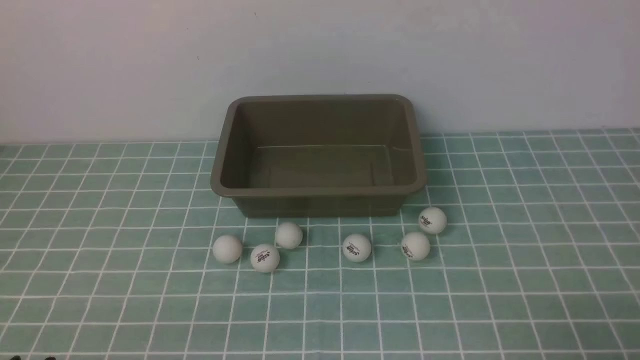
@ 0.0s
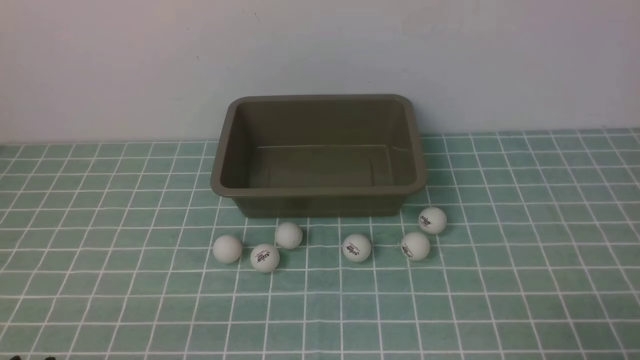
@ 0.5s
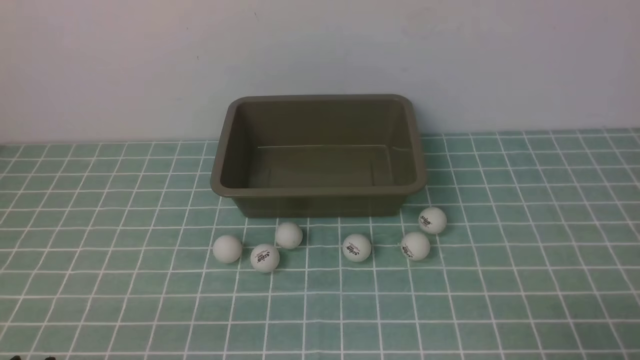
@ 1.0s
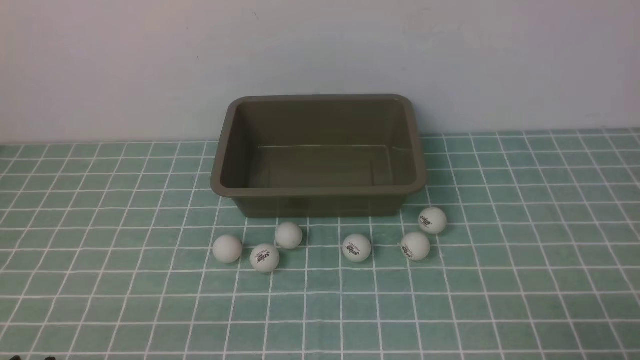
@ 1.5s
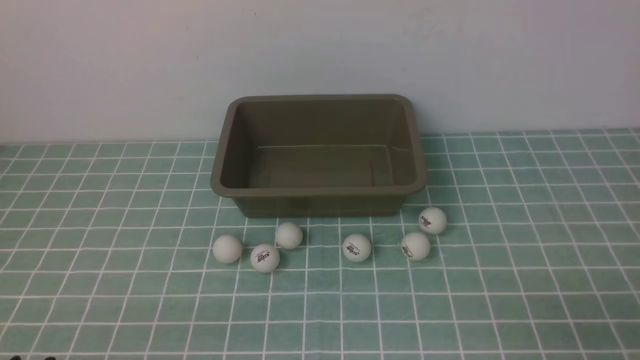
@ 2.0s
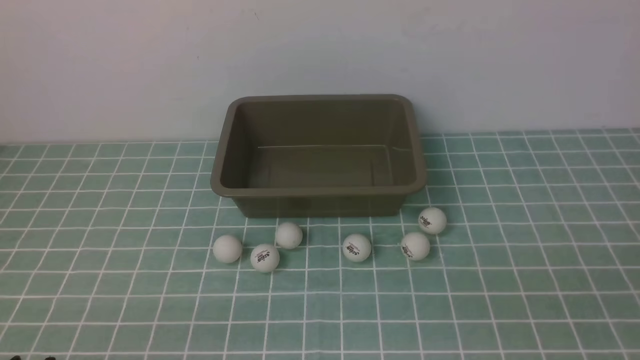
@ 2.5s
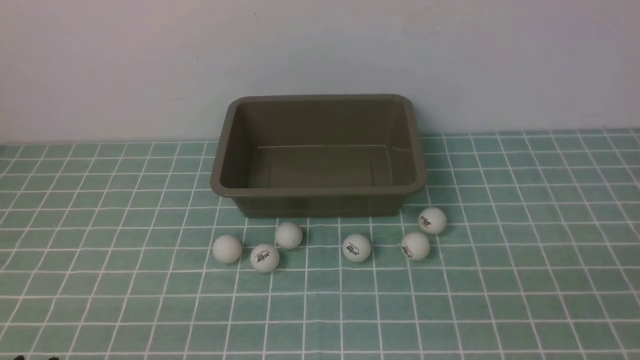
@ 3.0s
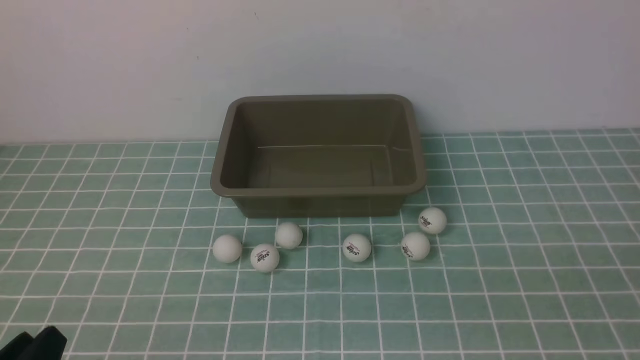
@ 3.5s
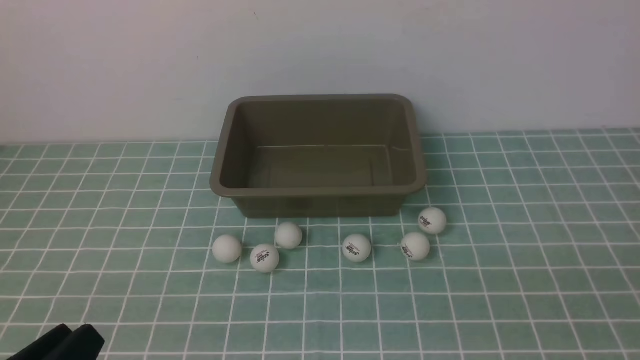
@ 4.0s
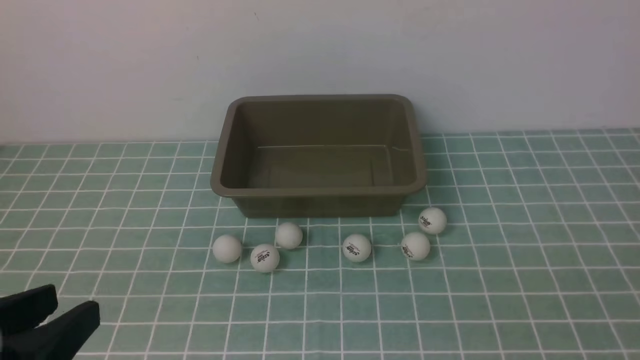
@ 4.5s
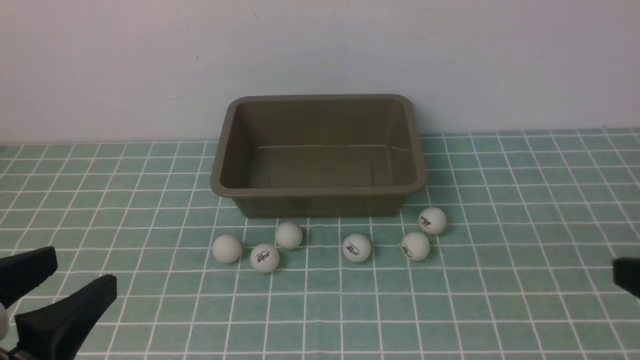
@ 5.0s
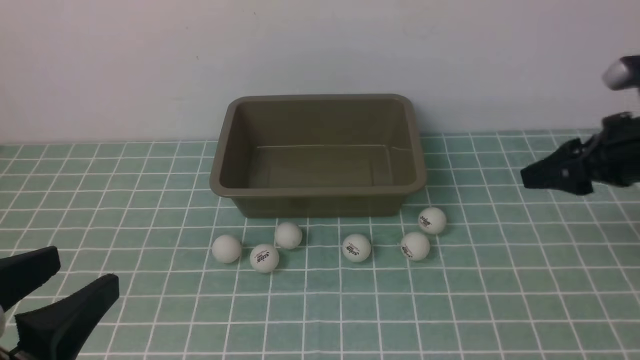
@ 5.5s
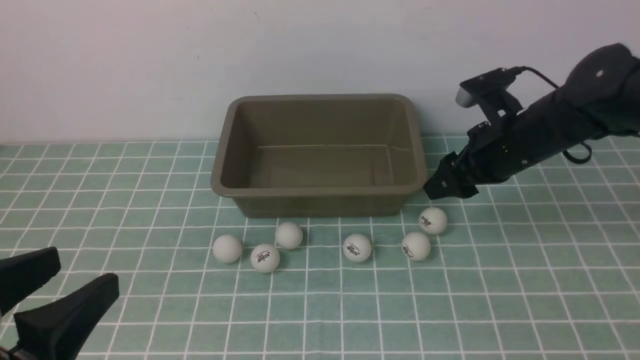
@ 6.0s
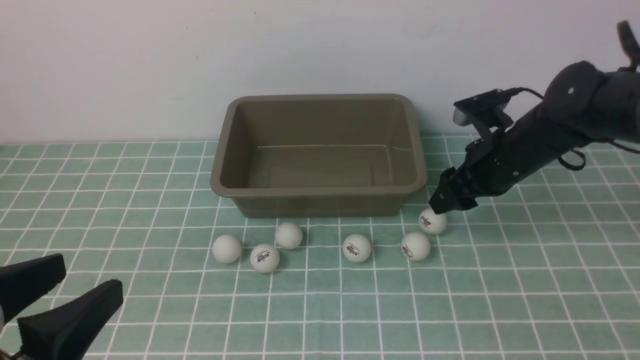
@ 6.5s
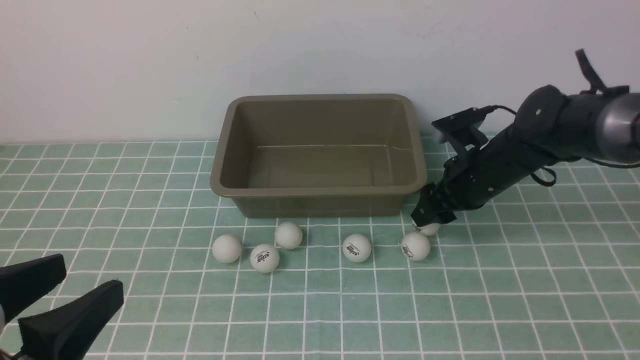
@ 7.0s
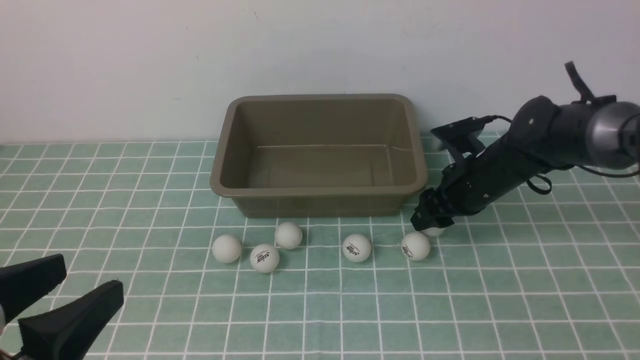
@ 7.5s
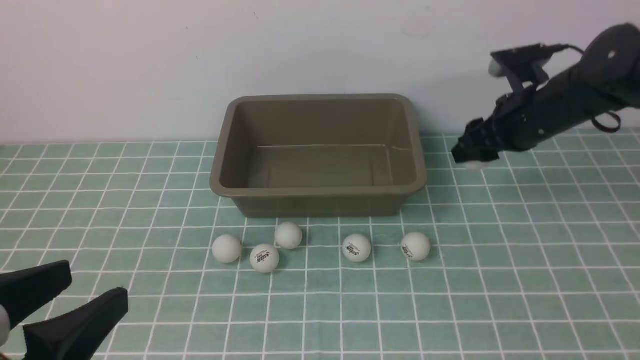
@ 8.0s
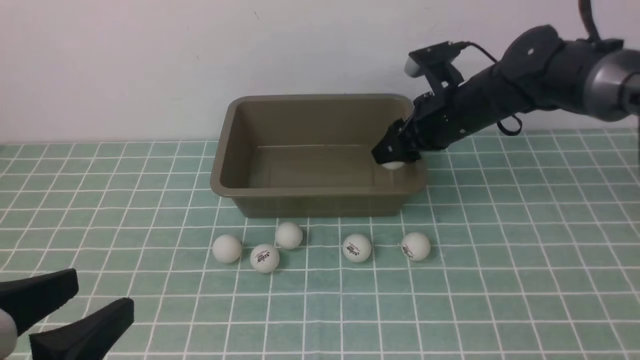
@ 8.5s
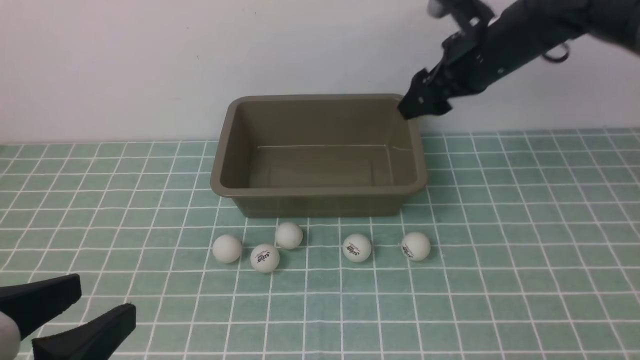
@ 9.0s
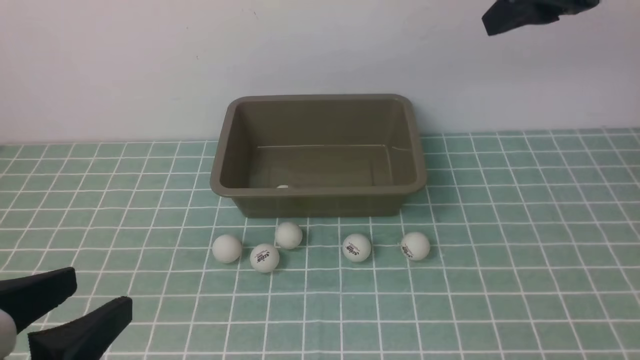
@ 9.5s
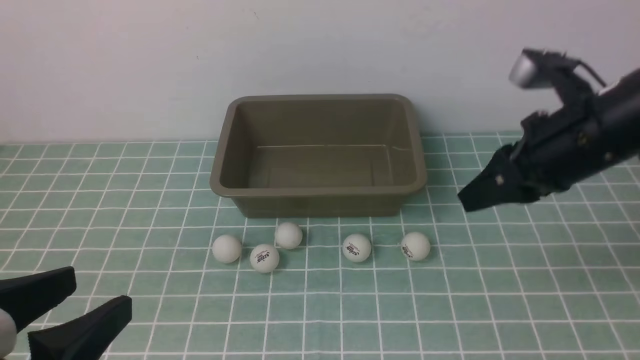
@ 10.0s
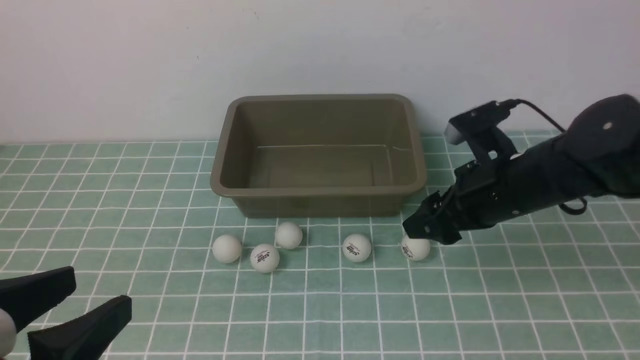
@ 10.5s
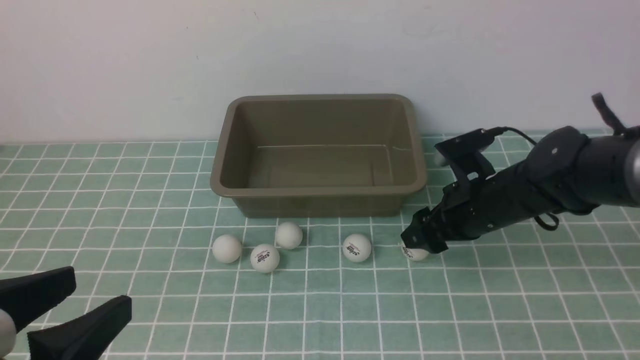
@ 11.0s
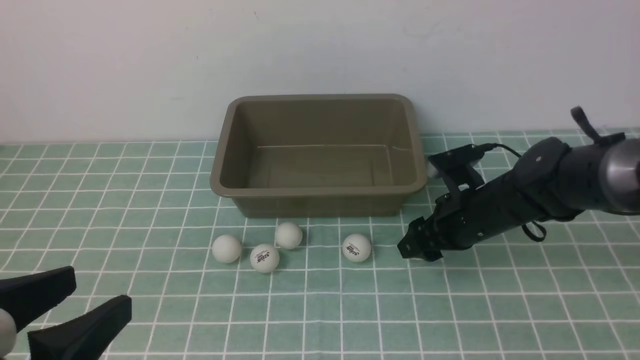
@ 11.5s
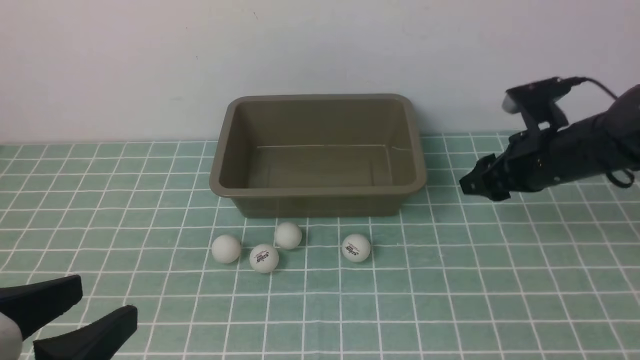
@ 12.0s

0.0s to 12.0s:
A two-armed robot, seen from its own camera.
Step, 0.0s to 7.5s: use the right arm to clamp the table tennis ball closest to it.
Step, 8.0s to 9.0s: use the right arm to put the table tennis ball into the box.
Step, 9.5s to 11.5s: use the right arm to clamp the table tennis ball closest to it.
2.0s to 4.0s: The left gripper changes place by approximately 5 cm.
4.0s to 6.0s: The left gripper moves upward, some 10 cm, and opens up; the right gripper heads forward, covering about 40 cm.
6.0s to 8.0s: The right gripper travels downward and back again, roughly 10 cm each way.
8.0s to 10.0s: The right gripper moves backward, some 10 cm, moves about 20 cm upward and comes back, and opens, then closes once more.
10.0s to 12.0s: The right gripper heads forward, covering roughly 10 cm, goes downward and returns, approximately 15 cm each way, and opens, then closes again.

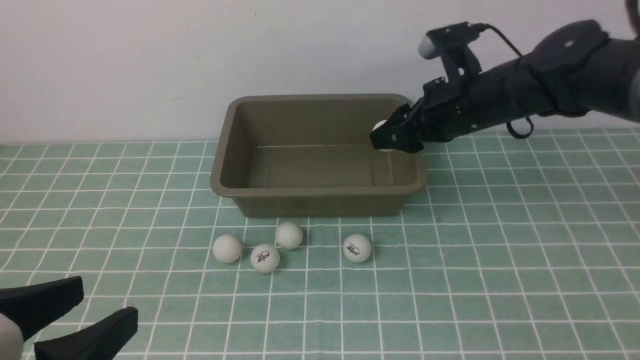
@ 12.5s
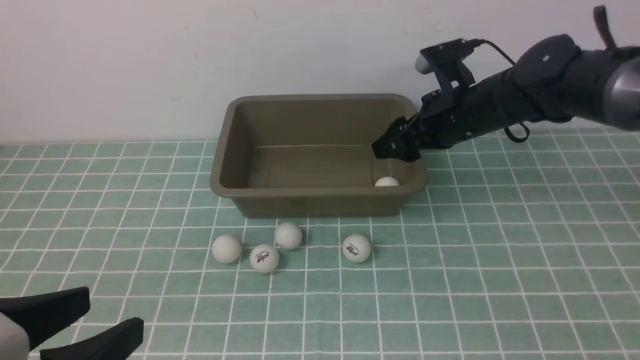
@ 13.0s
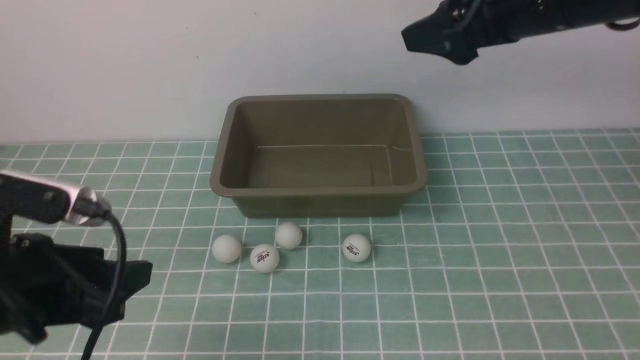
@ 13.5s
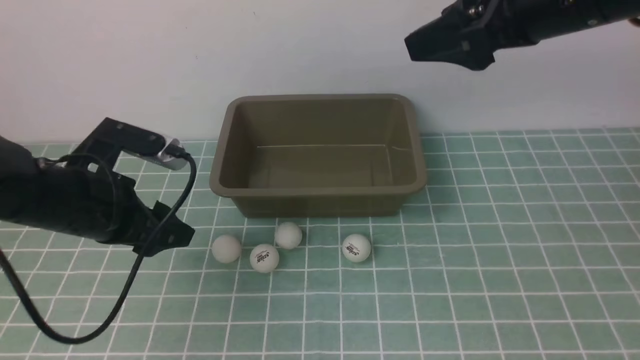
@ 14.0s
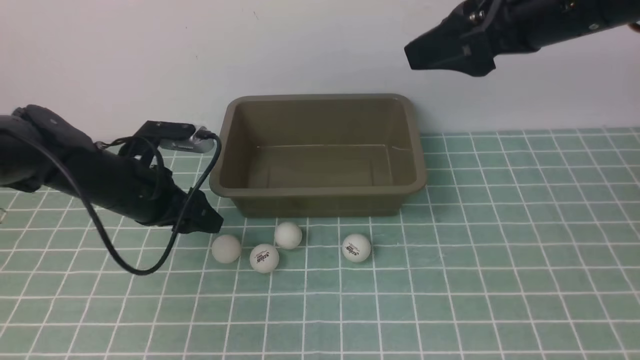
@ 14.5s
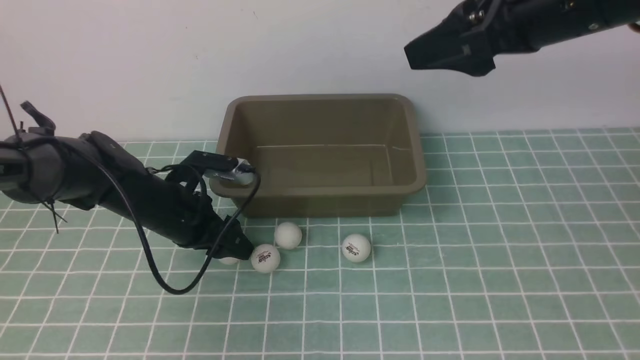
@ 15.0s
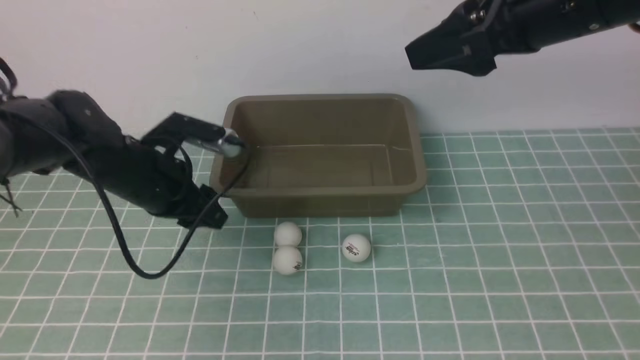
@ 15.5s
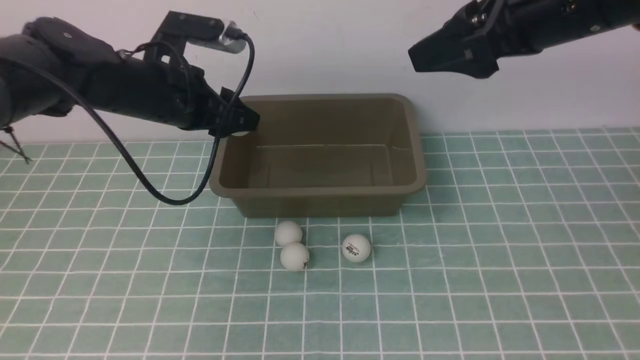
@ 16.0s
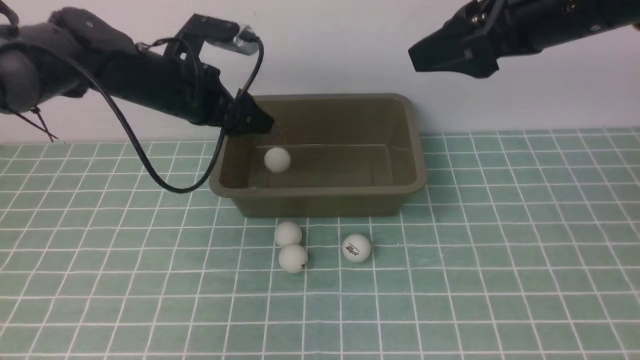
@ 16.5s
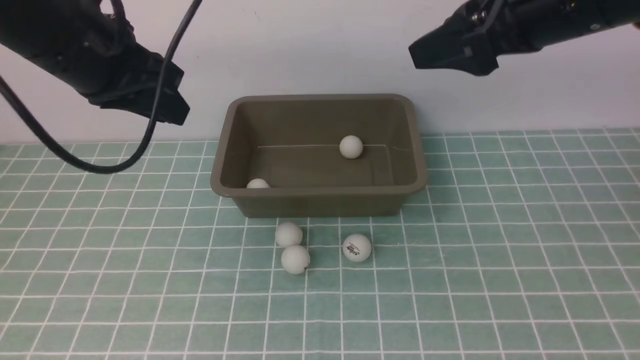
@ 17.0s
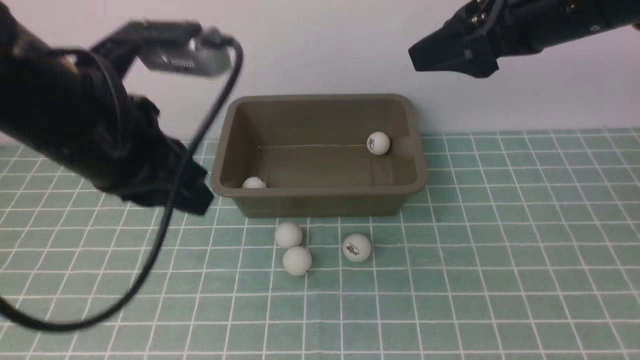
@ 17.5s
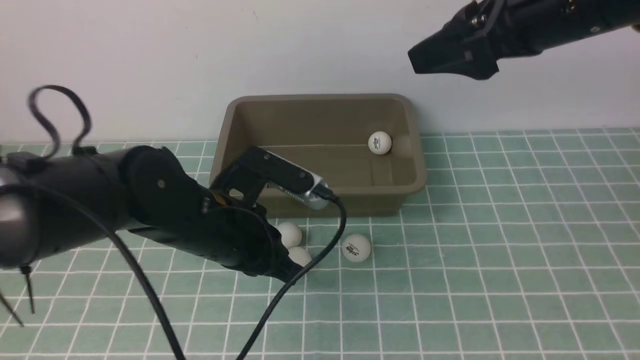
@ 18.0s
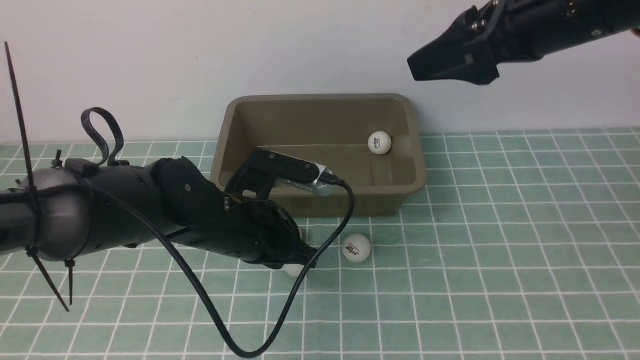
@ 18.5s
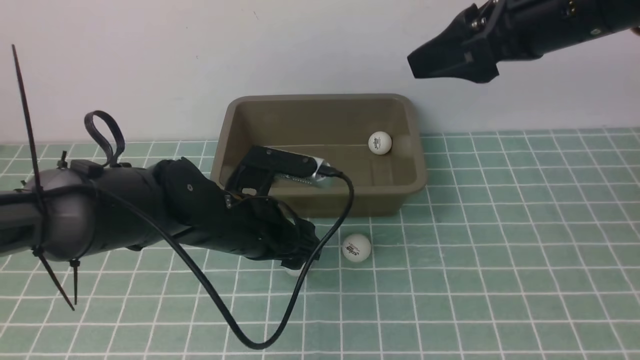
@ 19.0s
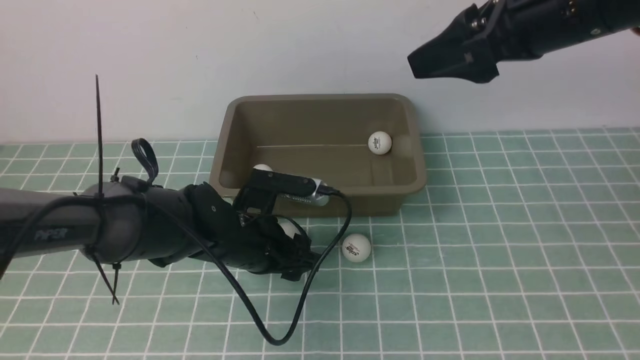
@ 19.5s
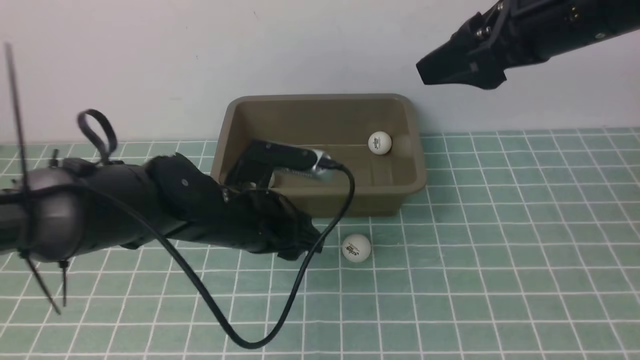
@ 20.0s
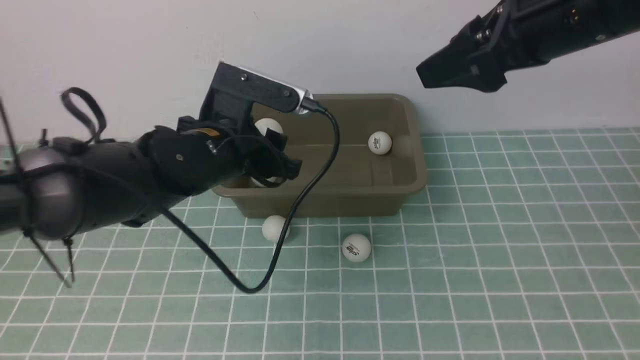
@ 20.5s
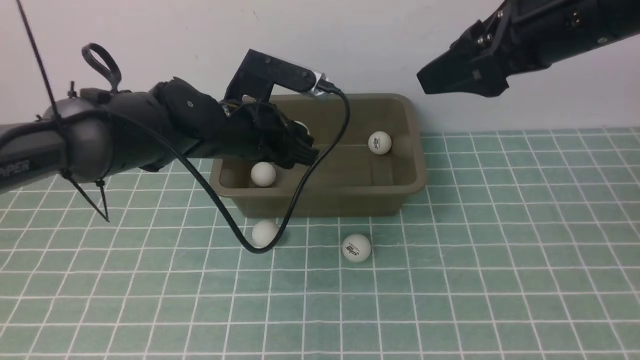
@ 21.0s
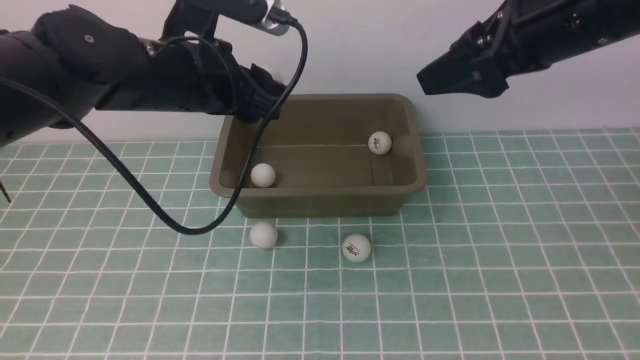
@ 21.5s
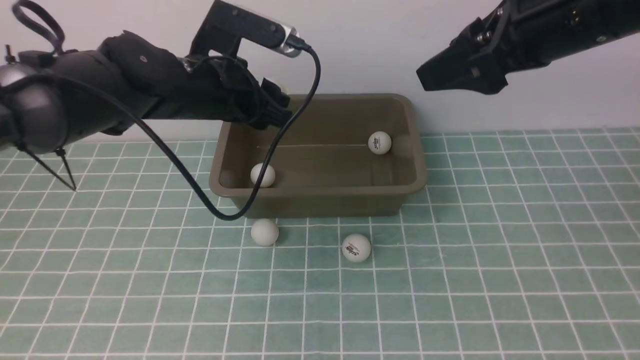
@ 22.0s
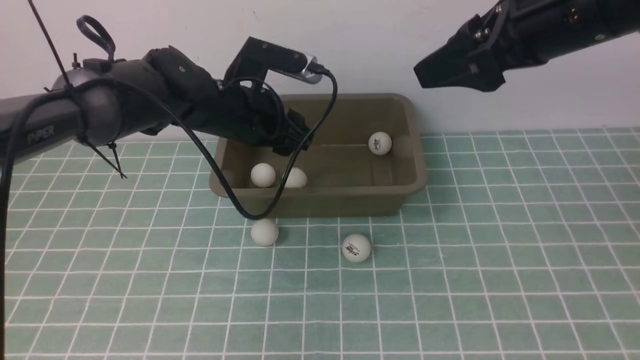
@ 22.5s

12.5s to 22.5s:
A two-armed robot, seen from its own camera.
Step, 12.5s to 13.0s: use the right arm to put the table tennis ball into the box.
Step, 13.5s to 15.0s: use the left arm to clamp the table tennis ball closest to it.
Step, 15.5s to 16.0s: use the left arm to put the table tennis ball into the box.
Step, 16.5s to 20.0s: use the left arm to clamp the table tennis ball closest to it.
12.5s to 14.5s: The right gripper heads upward and backward, covering roughly 20 cm, and opens. The left gripper heads forward, covering some 30 cm.
14.5s to 16.5s: The left gripper moves upward, forward and to the right, some 10 cm.
16.5s to 18.5s: The left gripper shifts about 15 cm backward, to the right and downward, and closes.
18.5s to 20.5s: The left gripper travels forward by approximately 5 cm, and opens up.
20.5s to 22.5s: The left gripper goes approximately 5 cm forward, and travels upward and back again, approximately 10 cm each way.
